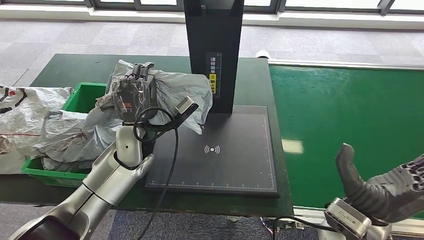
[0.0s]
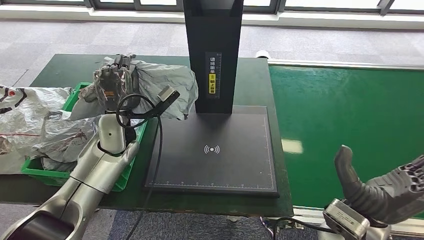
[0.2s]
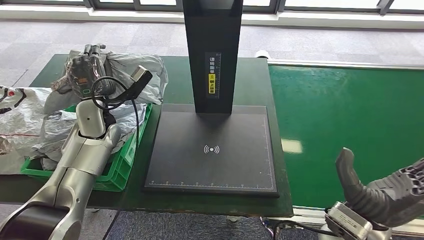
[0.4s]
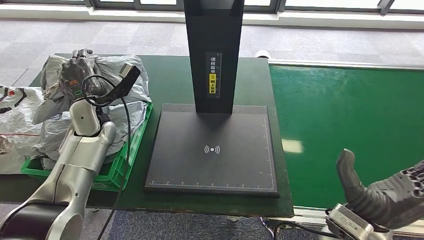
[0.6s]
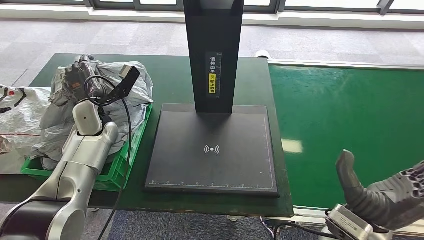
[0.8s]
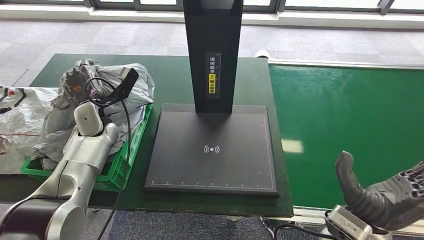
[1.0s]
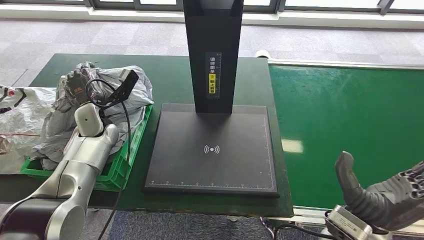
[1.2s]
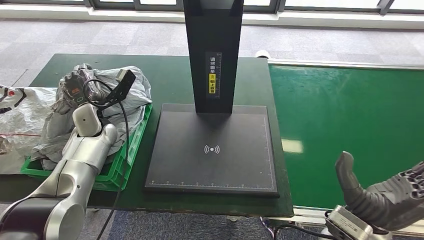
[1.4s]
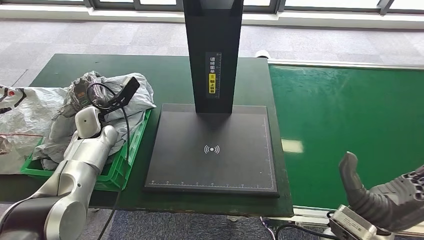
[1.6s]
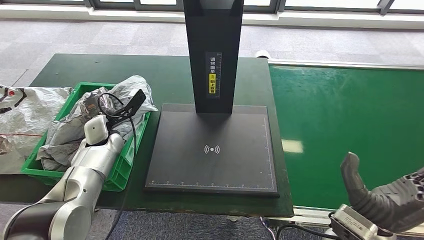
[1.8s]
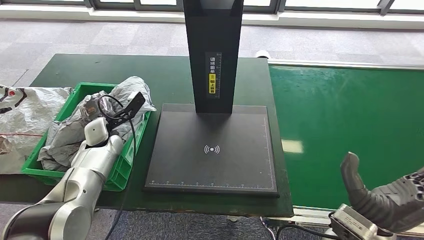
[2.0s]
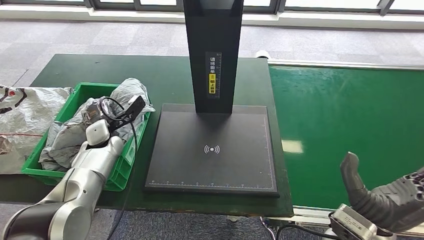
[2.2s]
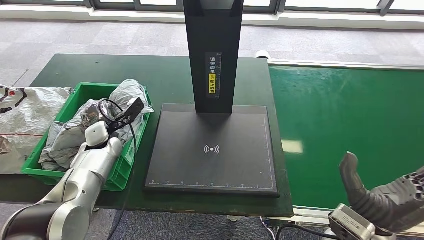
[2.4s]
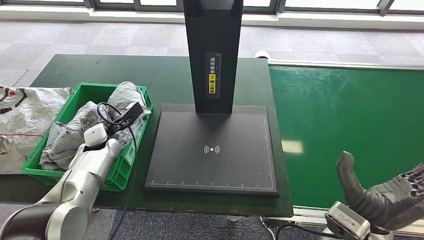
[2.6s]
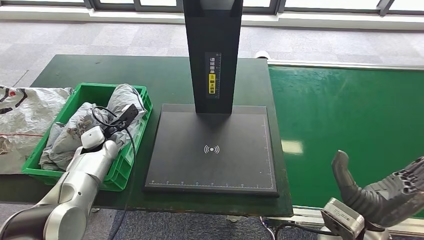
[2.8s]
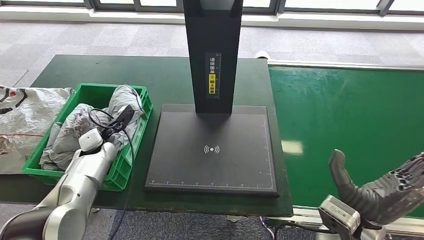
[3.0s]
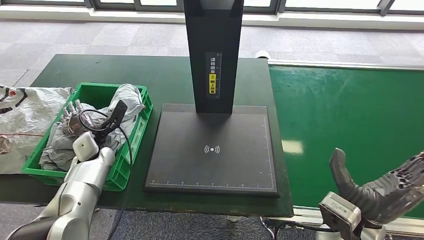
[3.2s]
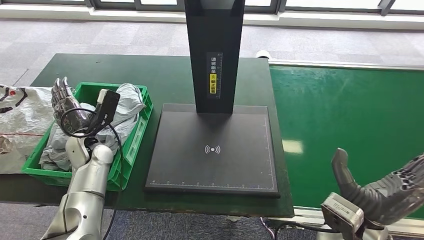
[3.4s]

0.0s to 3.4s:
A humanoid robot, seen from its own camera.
Step, 0.0s to 3.4s: Place the parcel into the delivery box.
1.6s to 3.4s: The left hand moves backward, some 5 cm.

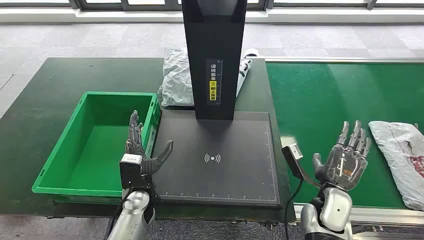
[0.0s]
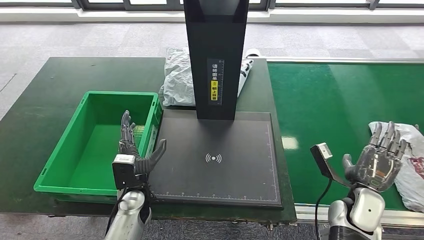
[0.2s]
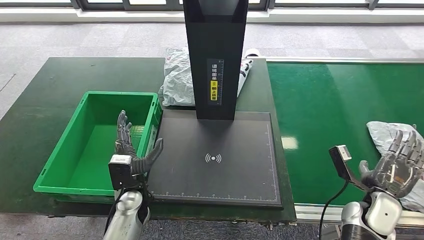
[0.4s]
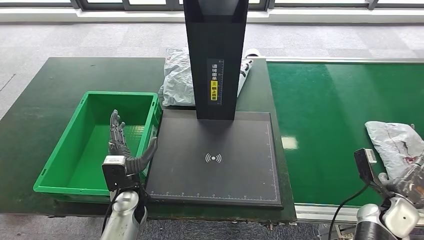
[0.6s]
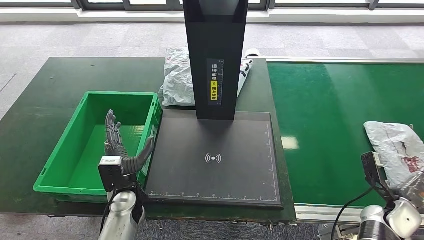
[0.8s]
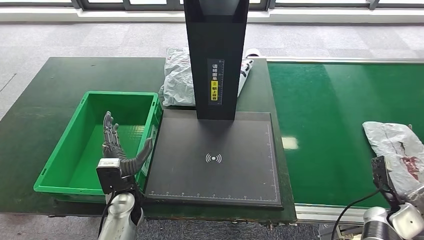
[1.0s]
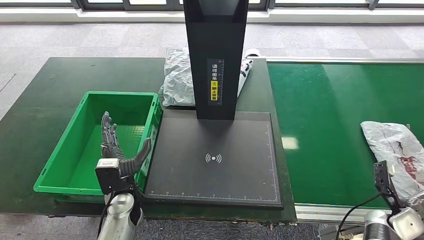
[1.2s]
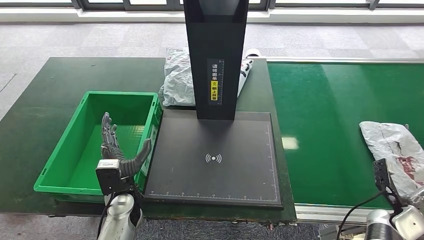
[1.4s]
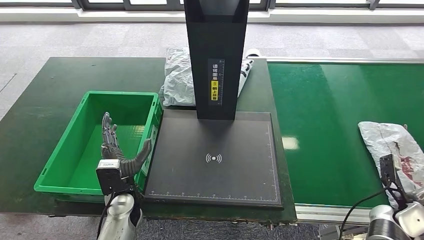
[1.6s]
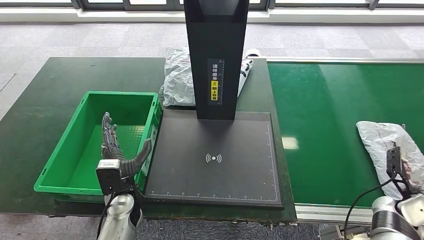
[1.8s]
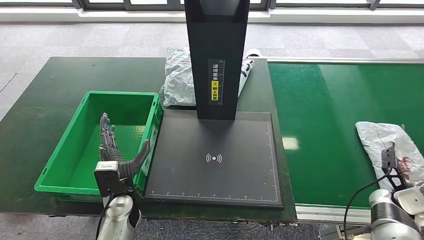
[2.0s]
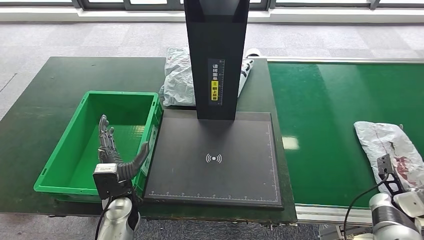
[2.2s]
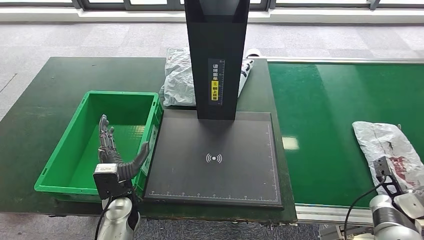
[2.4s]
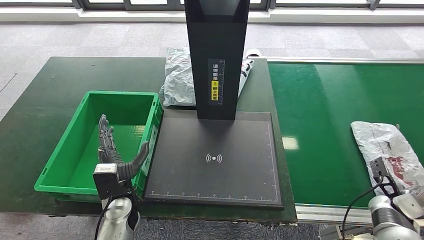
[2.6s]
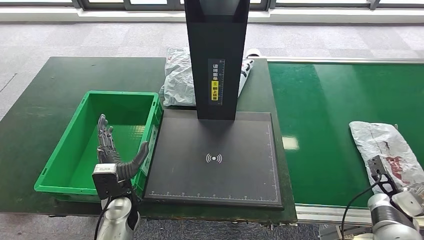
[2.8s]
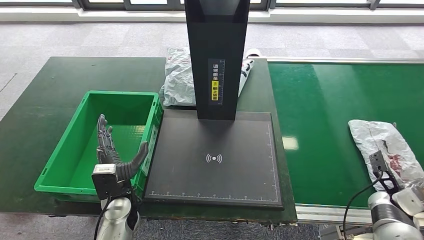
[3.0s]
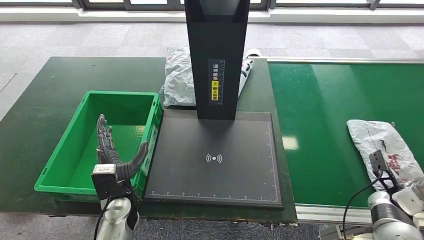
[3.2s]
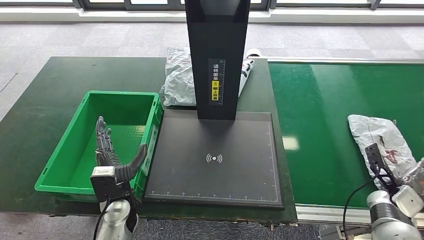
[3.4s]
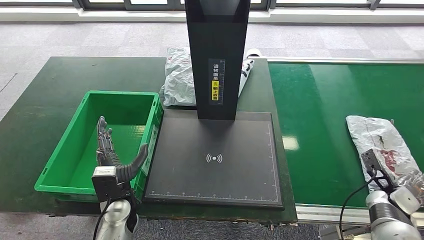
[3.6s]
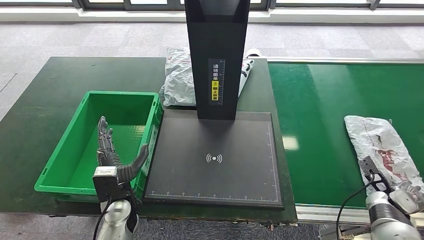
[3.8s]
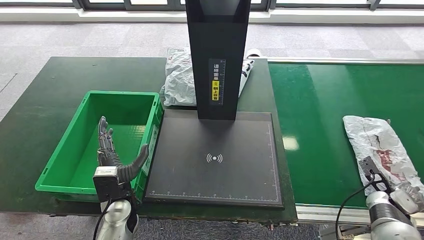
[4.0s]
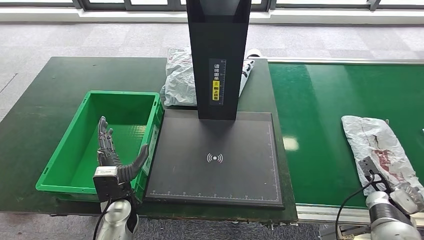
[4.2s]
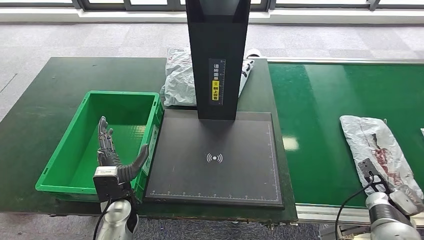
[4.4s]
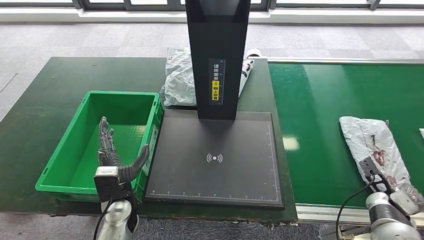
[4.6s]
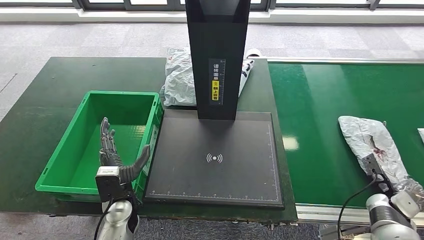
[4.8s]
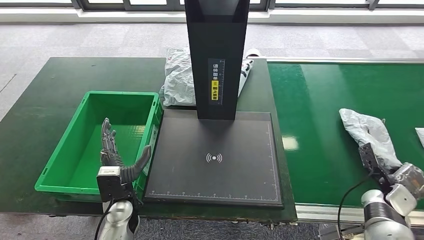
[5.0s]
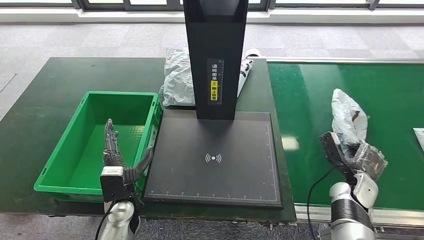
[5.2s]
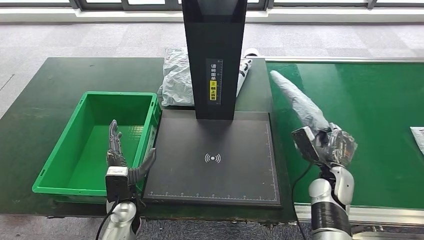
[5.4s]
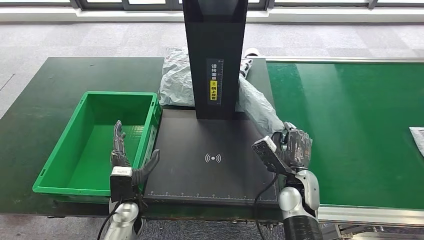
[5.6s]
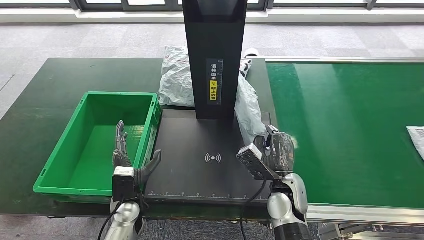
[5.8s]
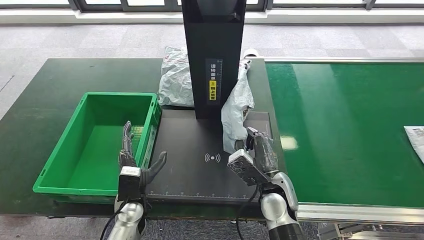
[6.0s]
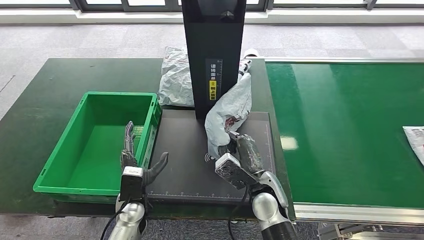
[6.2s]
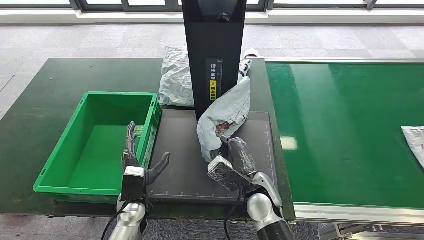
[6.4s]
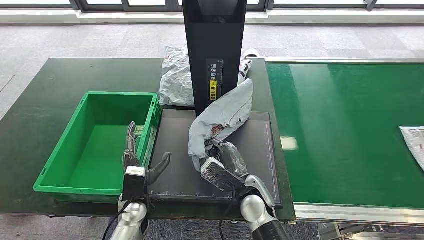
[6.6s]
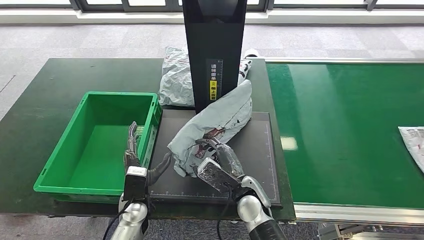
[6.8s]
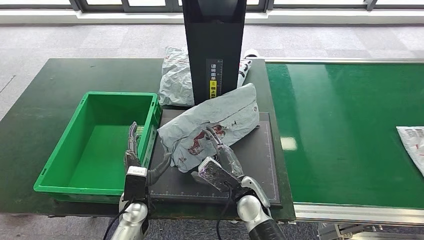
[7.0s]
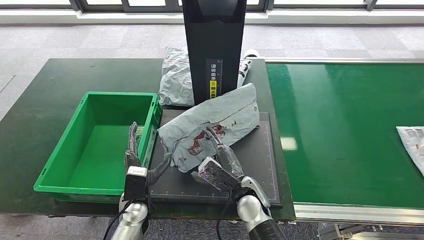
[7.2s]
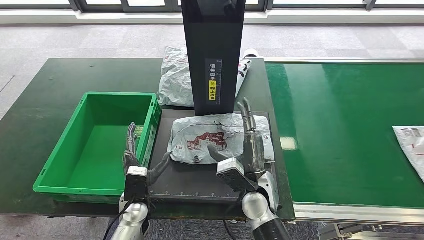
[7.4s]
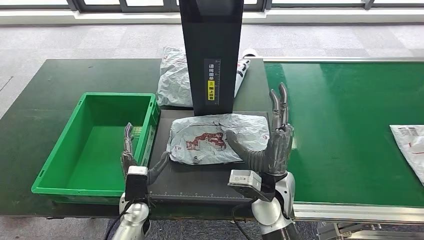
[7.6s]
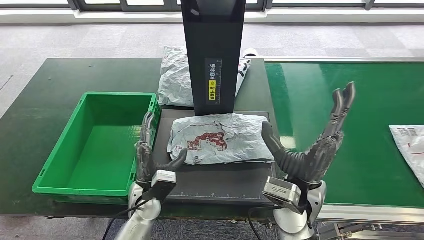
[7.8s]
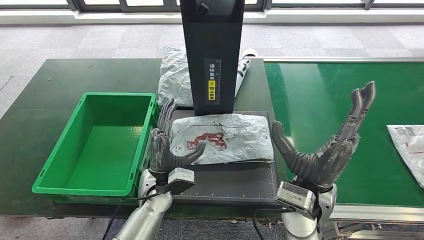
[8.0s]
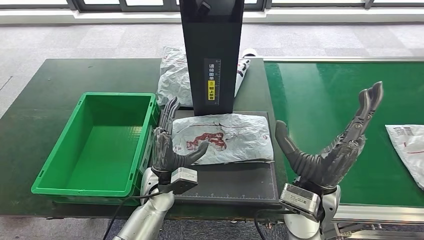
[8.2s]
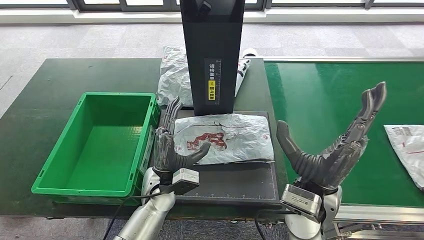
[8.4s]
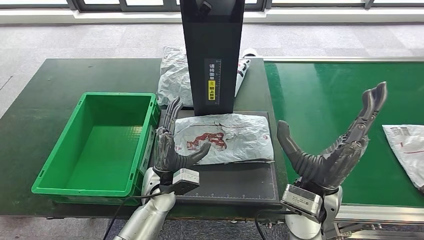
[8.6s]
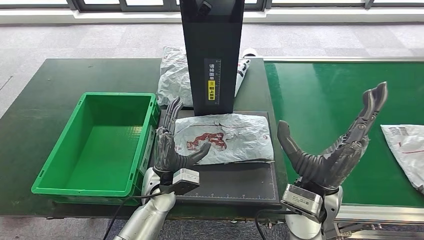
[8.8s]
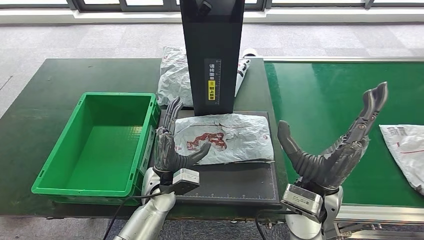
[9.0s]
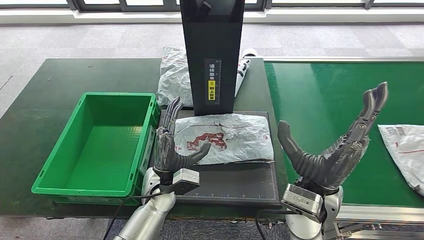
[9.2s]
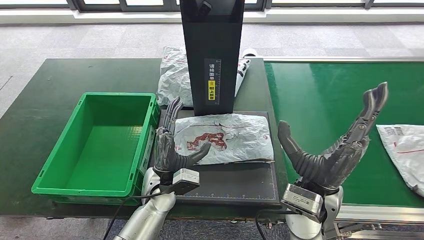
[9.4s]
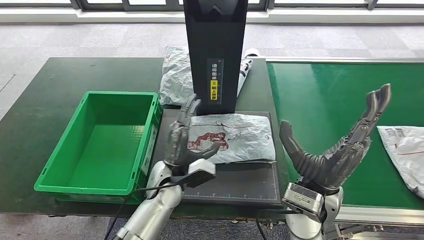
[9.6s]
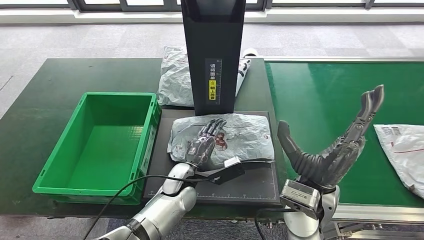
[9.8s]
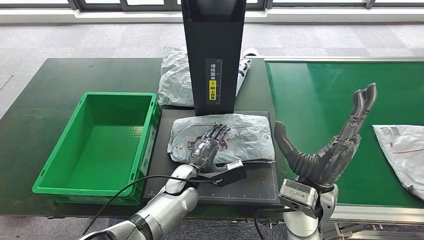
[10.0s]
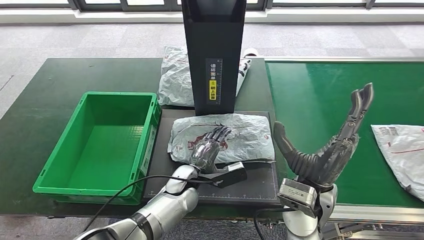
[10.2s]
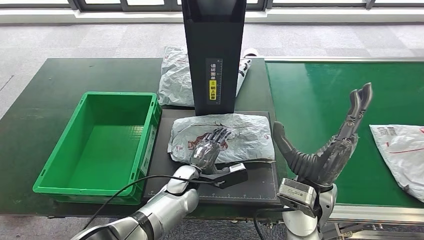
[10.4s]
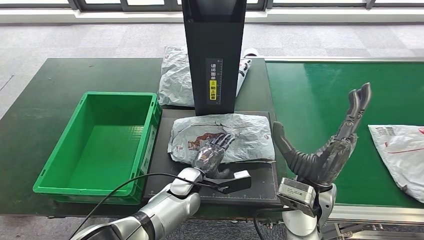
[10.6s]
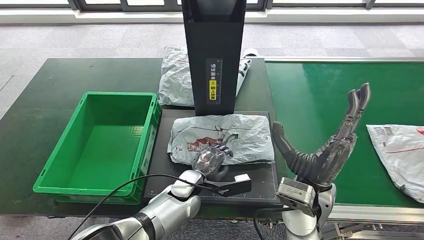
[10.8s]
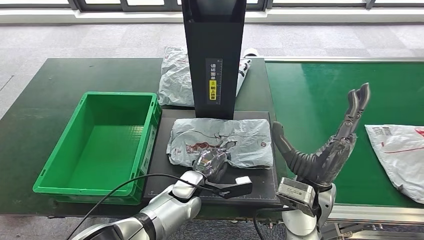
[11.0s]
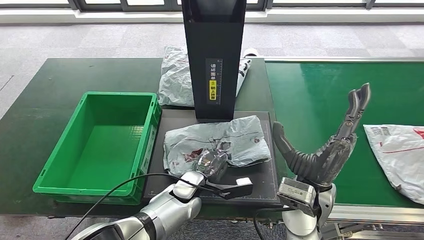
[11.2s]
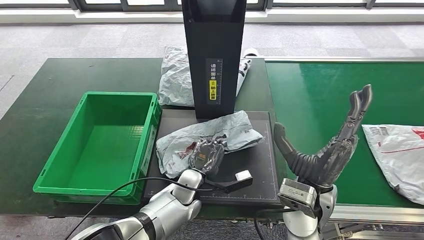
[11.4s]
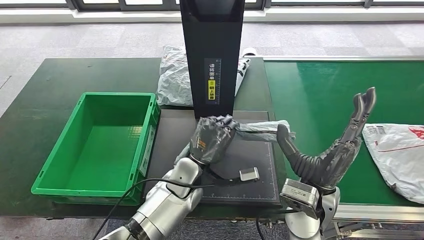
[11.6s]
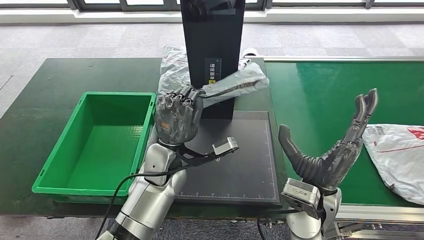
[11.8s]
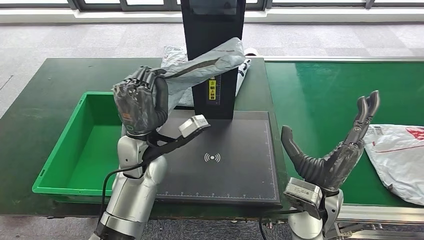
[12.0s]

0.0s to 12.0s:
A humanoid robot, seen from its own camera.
Step, 0.0s to 5.4s: Take the parcel off the conveyor belt.
Step, 5.6s to 8.2s: Place the parcel onto the inbound machine.
3.0s to 4.4s: The hands make only small movements.
6.0s to 7.6s: The right hand moves upward, some 5 cm.
7.6s to 9.0s: The left hand heads upward and to the right, covering roughly 10 cm; the right hand goes some 10 cm to the right and upward.
9.0s to 10.4s: The left hand ends up some 5 cm from where it was.

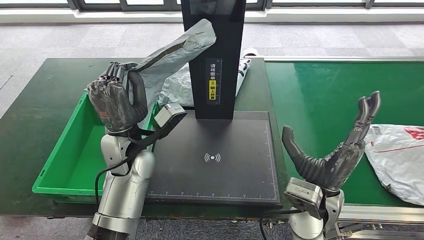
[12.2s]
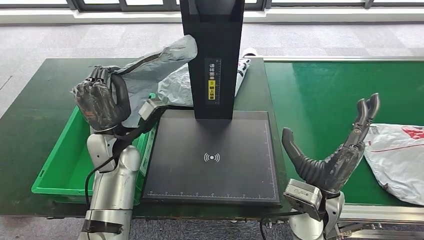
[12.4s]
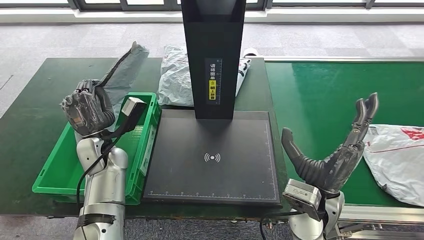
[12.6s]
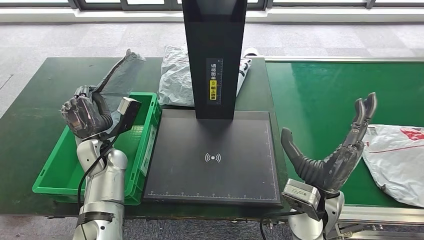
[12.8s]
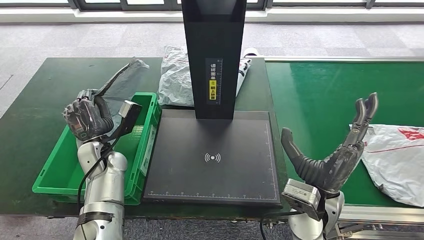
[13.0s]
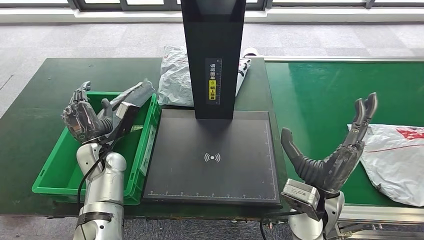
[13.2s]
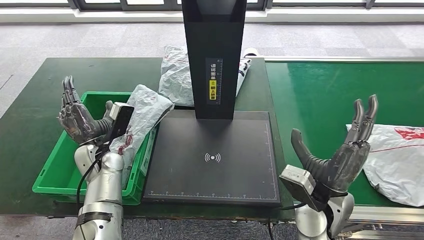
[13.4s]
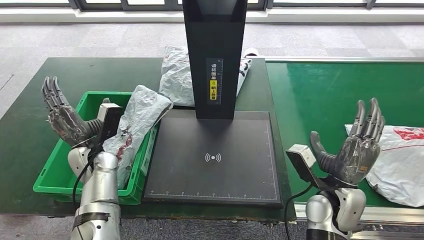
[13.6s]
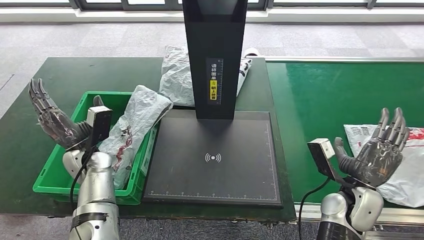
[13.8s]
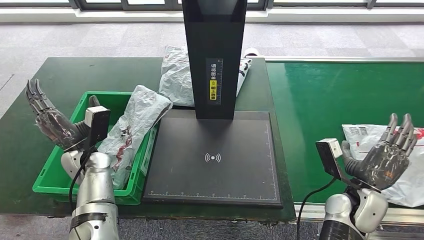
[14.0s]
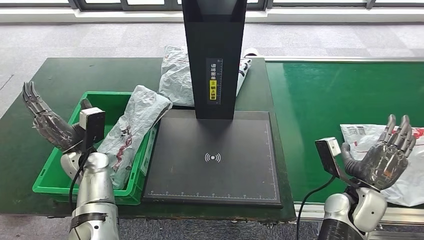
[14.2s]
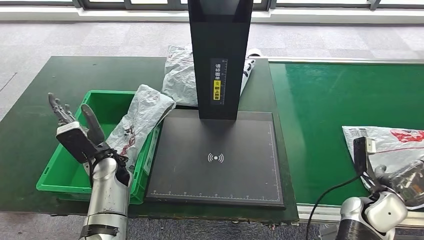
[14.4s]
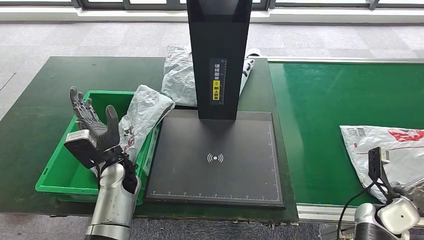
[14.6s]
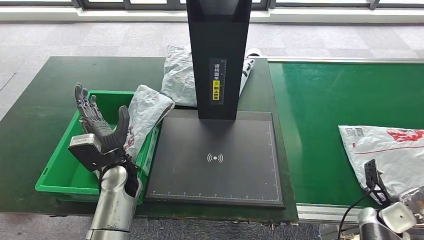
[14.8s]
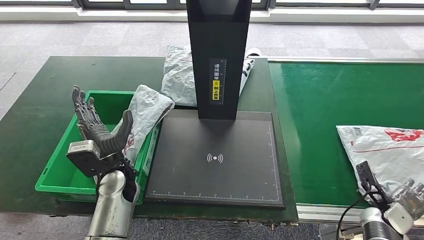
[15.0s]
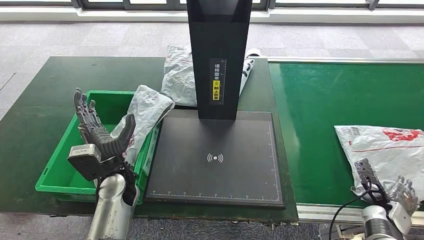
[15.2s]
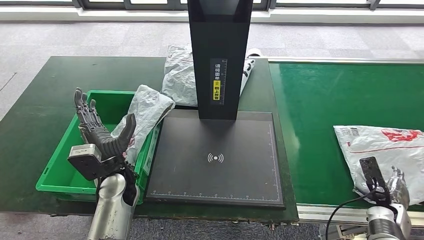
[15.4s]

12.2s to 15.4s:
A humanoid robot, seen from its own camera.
Step, 12.6s to 14.4s: Put the parcel inside the courier box.
